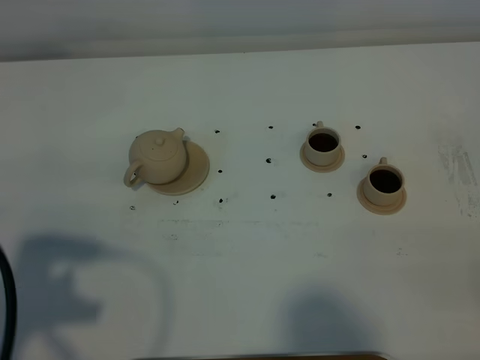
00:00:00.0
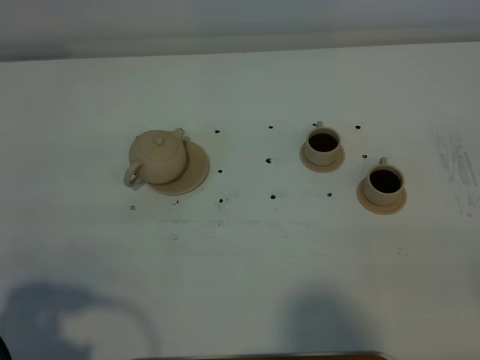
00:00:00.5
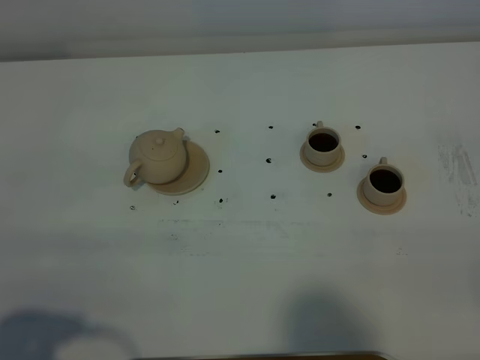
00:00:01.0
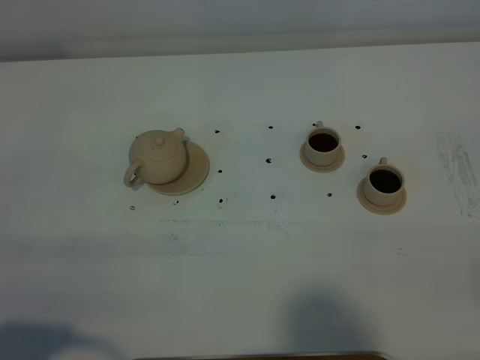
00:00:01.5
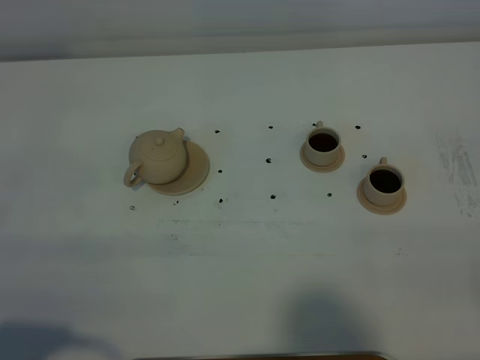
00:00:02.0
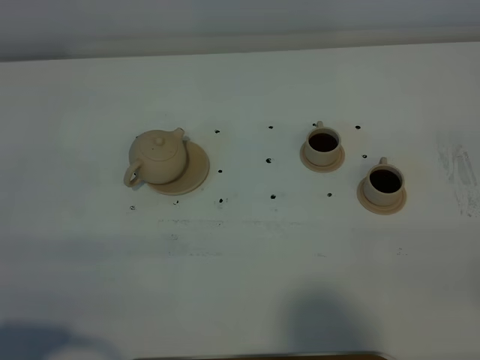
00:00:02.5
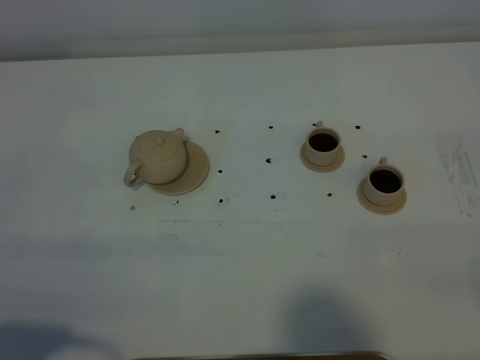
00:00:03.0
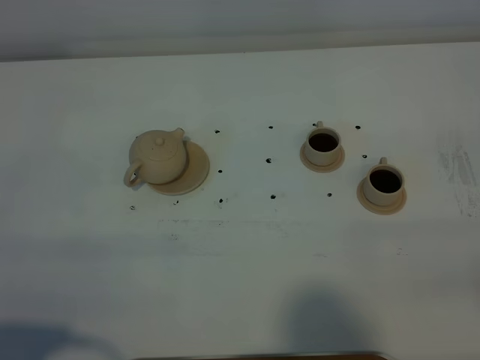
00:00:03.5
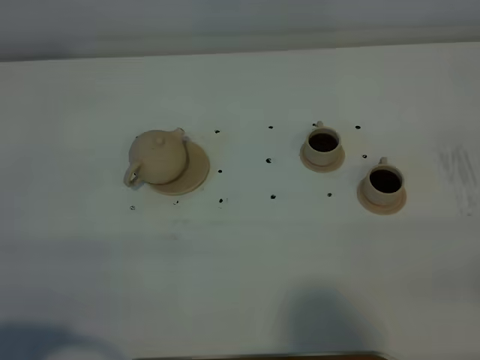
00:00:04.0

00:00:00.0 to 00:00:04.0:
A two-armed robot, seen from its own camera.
Task of the whole recording: grasp the brown teapot and pour the tea into the two brown teacups one by one, put the brown teapot back in its original place.
00:00:00.0 to 00:00:02.0: The left gripper heads backward and downward, covering some 10 cm.

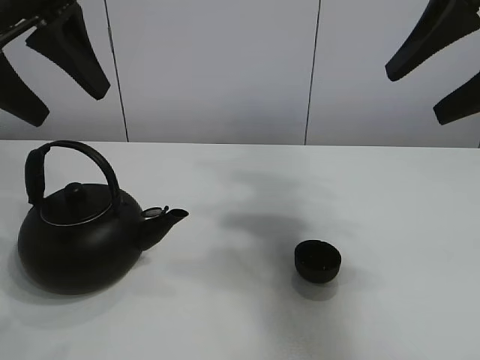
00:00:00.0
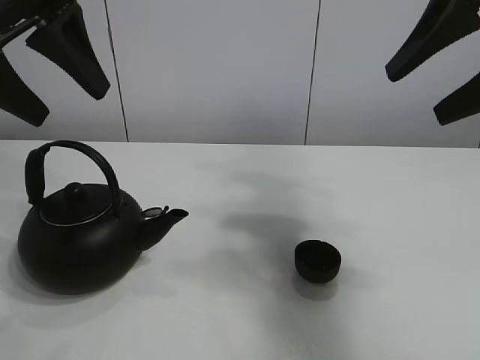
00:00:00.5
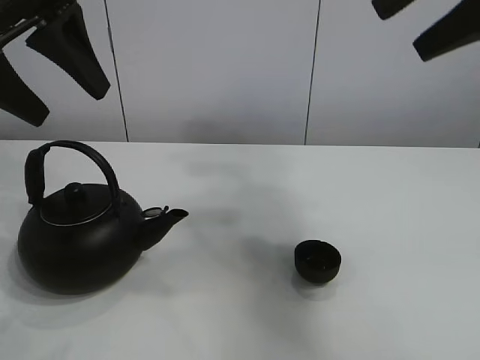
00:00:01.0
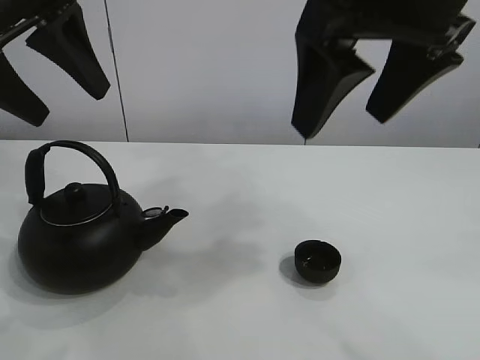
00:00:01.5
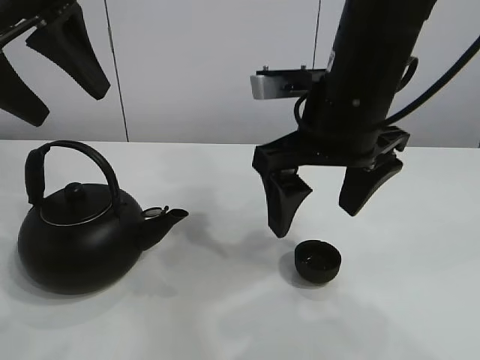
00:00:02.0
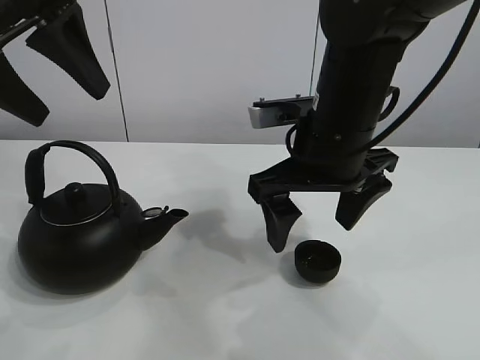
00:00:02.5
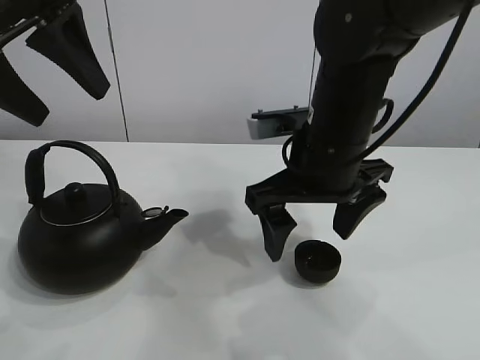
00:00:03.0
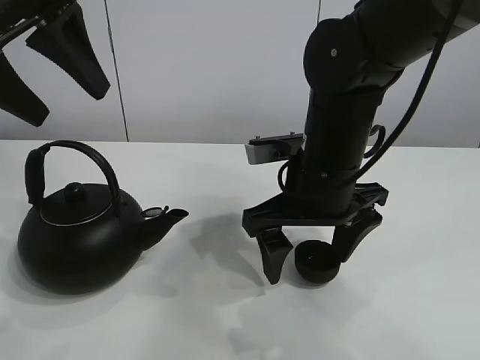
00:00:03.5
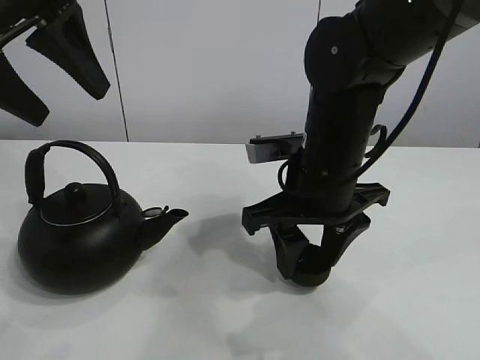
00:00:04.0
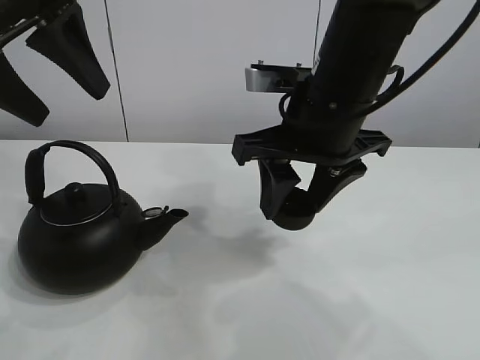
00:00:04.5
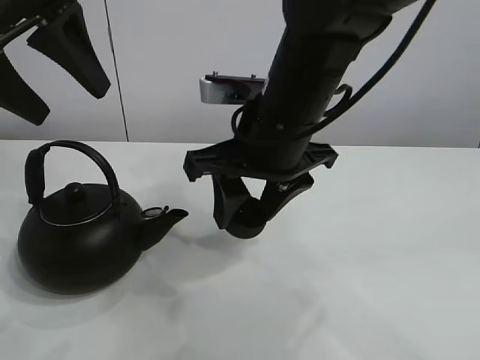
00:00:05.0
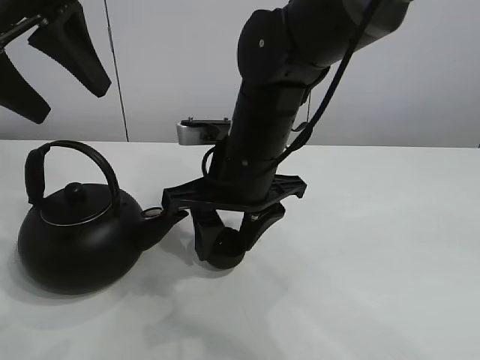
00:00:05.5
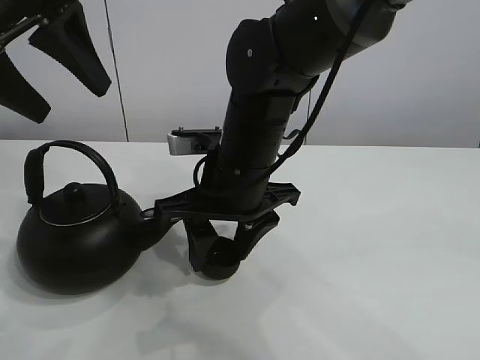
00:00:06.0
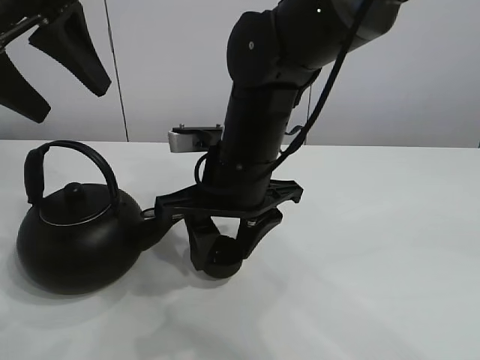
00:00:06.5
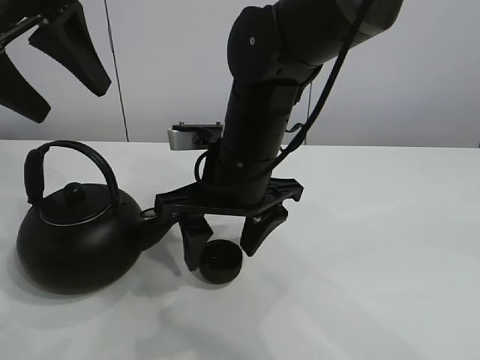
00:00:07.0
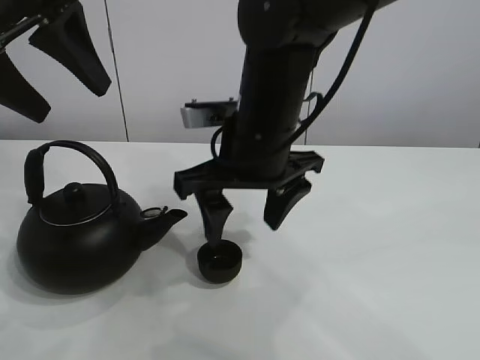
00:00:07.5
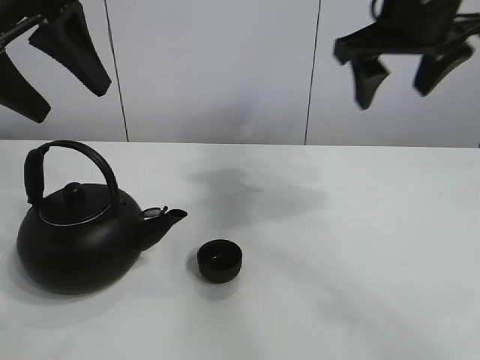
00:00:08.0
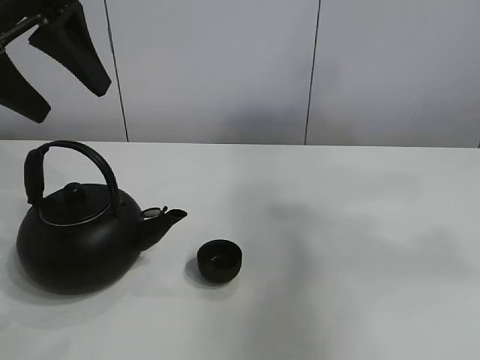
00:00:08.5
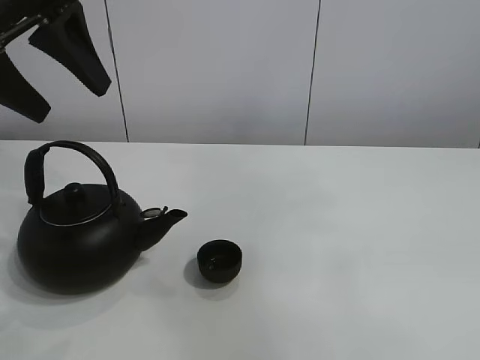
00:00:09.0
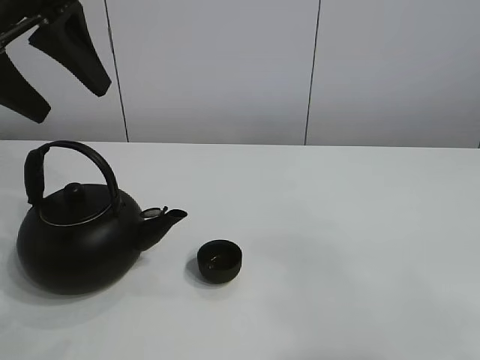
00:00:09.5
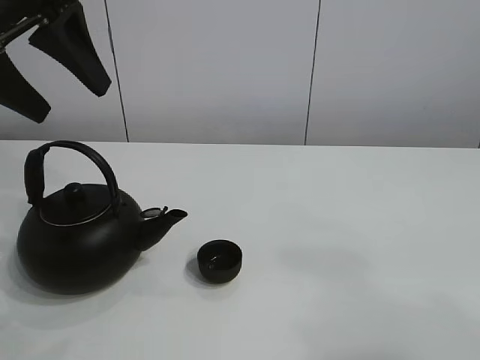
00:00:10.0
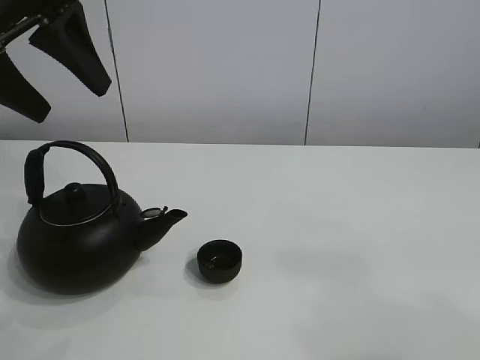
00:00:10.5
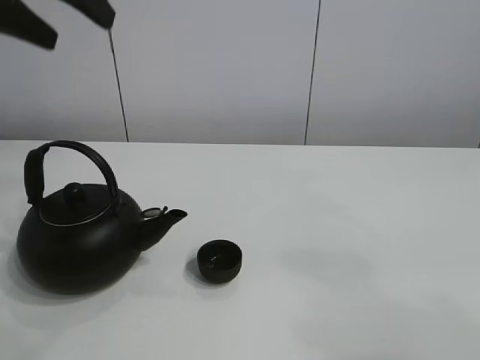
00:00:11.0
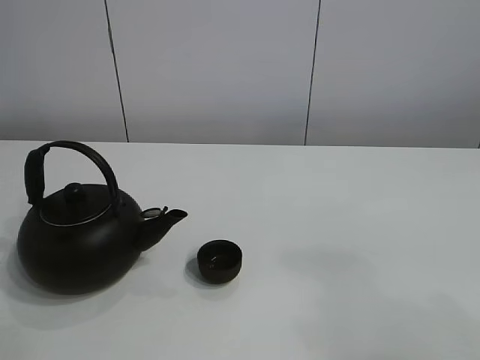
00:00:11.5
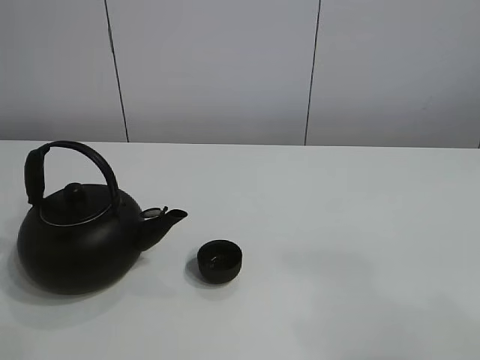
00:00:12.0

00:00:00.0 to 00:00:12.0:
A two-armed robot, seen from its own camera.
Task of the whole recording: pour tea into the teacup.
Step, 00:00:00.0 to 00:00:03.5: Pick up the teacup with the right gripper.
Step, 00:00:04.5 to 00:00:07.0: Place the teacup in the center of view with the right gripper.
00:00:02.0 to 00:00:04.0: The right gripper travels downward by about 10 cm, and closes its fingers.
00:00:04.0 to 00:00:06.0: The right gripper goes about 10 cm to the left.
00:00:06.0 to 00:00:08.0: The right gripper heads to the right and upward, covering roughly 20 cm, and opens up.
00:00:08.0 to 00:00:10.0: The right gripper shifts approximately 35 cm backward.
00:00:10.0 to 00:00:12.0: The left gripper is displaced backward and to the left by some 15 cm.

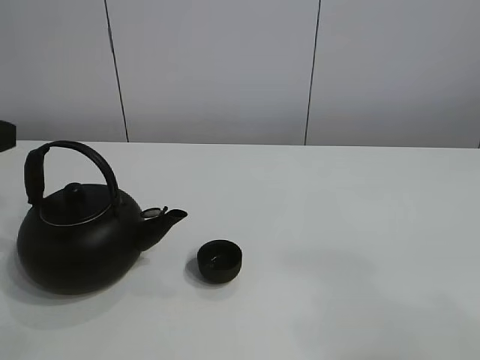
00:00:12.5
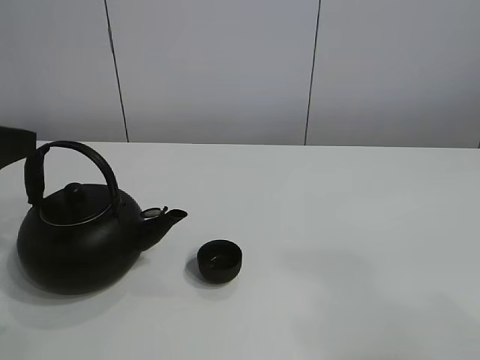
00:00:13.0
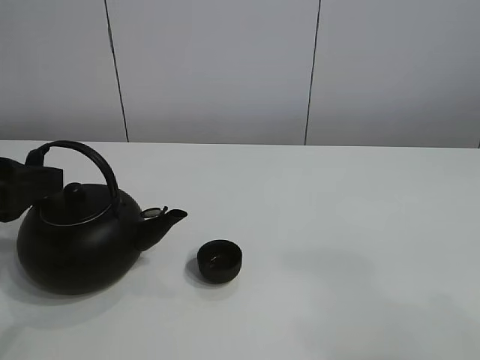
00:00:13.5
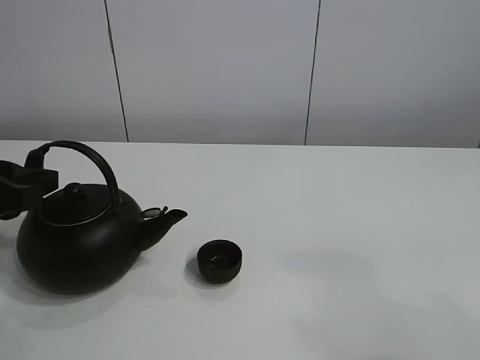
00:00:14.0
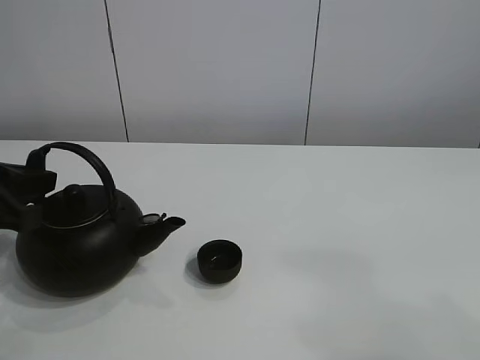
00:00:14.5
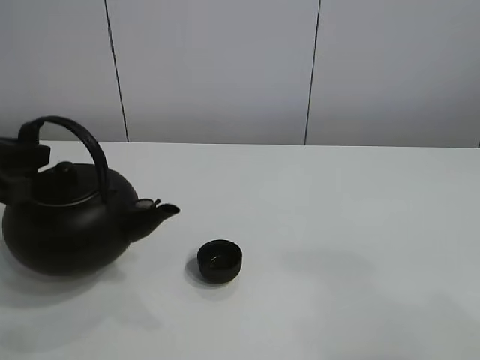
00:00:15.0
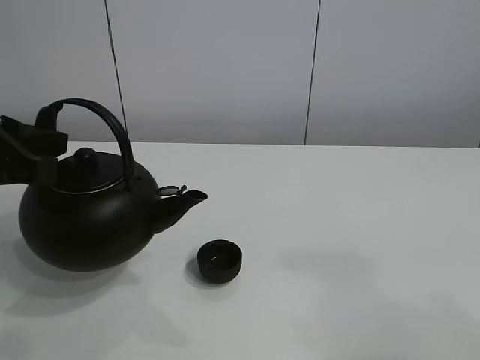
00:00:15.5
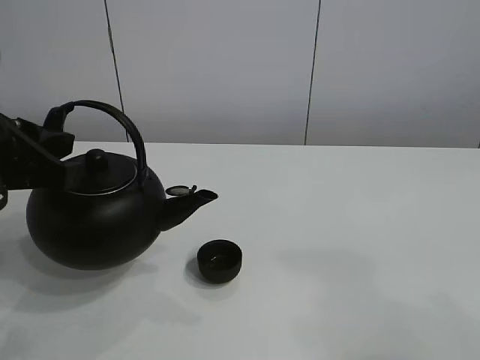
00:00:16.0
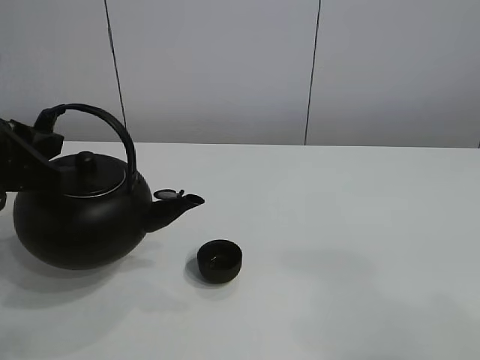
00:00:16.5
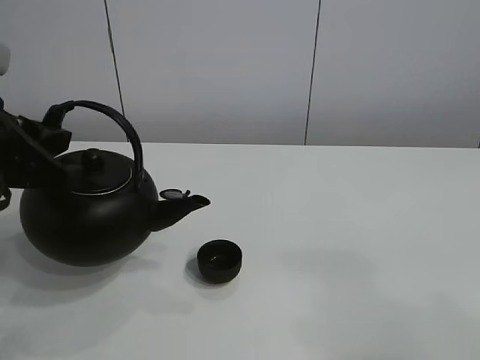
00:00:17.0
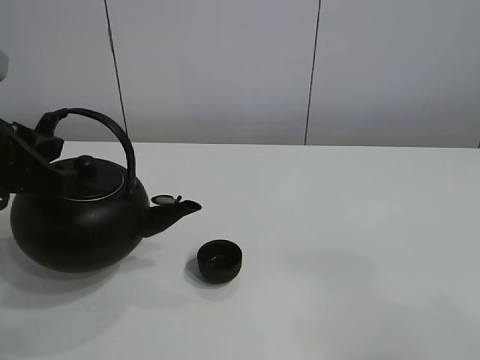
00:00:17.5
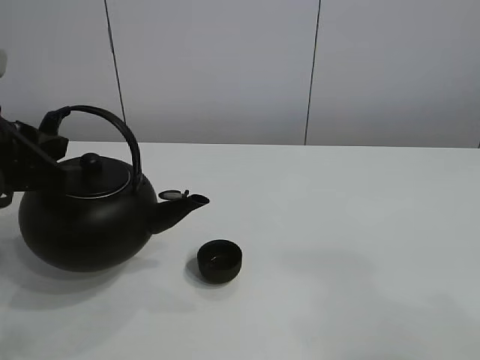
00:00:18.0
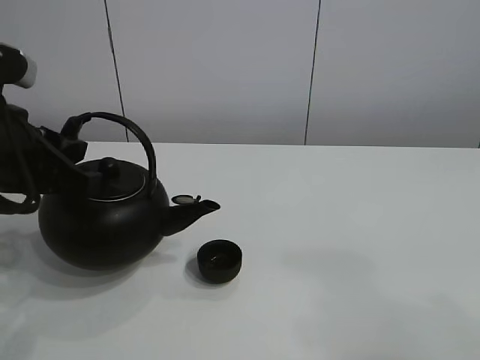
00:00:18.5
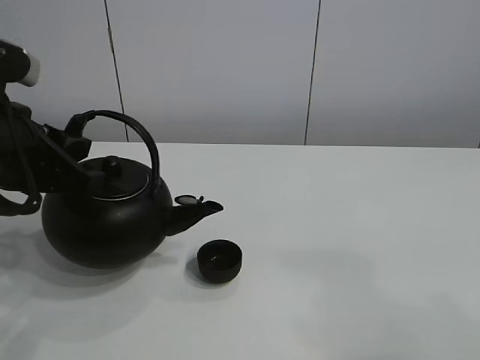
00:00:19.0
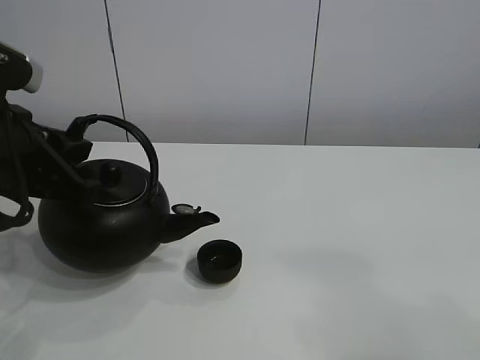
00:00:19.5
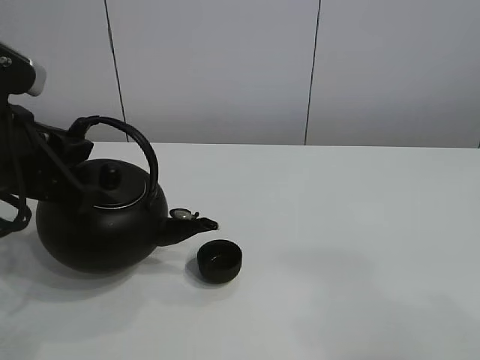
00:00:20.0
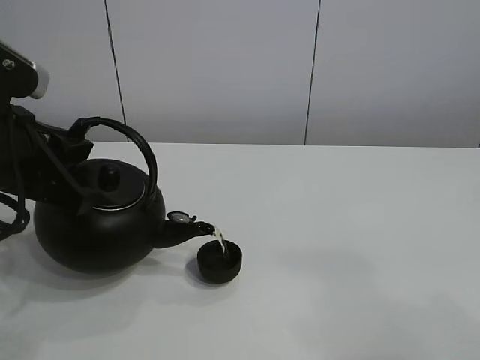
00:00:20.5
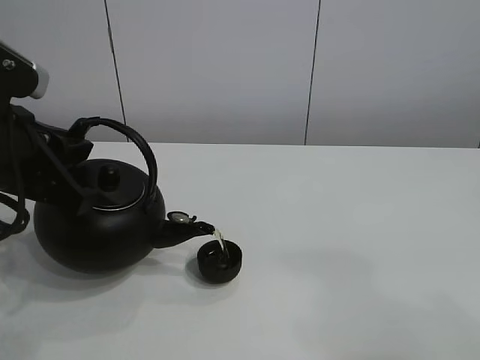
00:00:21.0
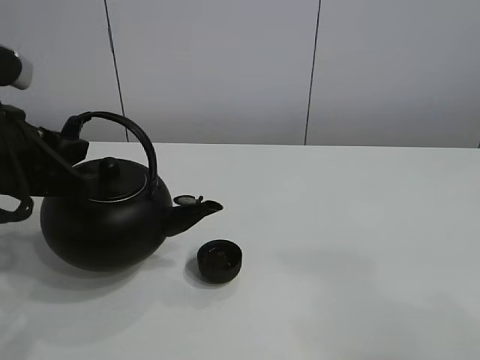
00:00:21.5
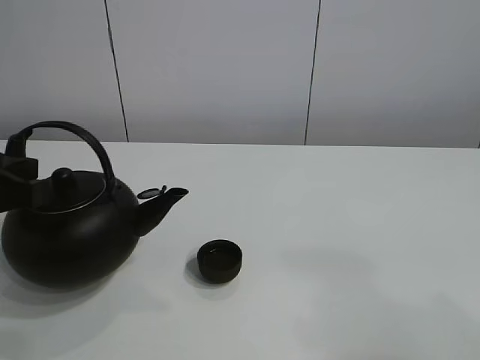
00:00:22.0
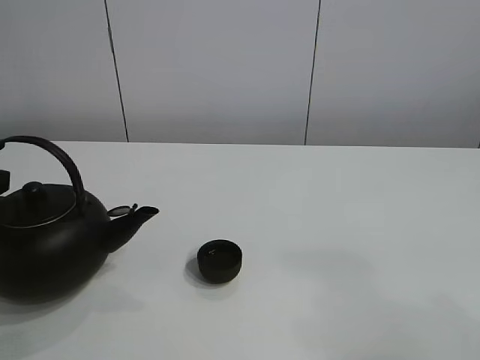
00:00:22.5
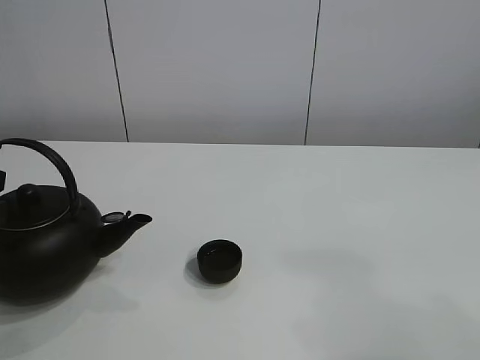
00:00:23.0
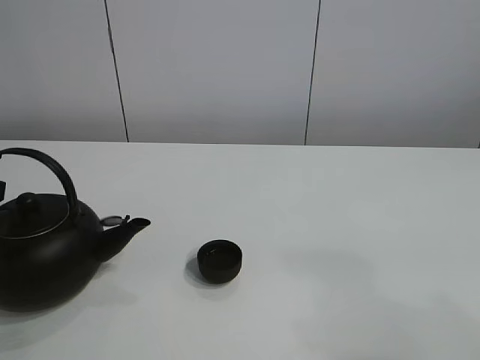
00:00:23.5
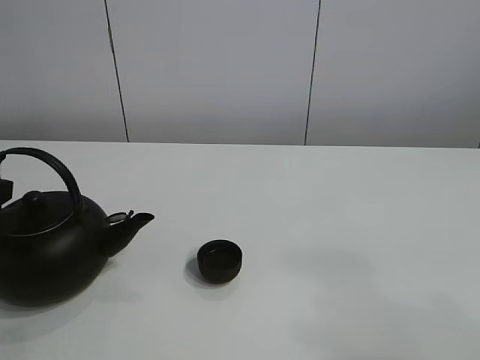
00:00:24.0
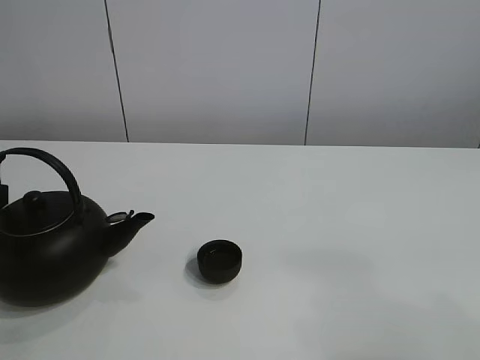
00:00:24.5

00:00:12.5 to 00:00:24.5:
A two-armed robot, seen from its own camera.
Task of the whole recording: pour tea into the teacup.
Step, 00:00:12.5 to 00:00:14.5: Pick up the teapot with the left gripper.
Step, 00:00:15.0 to 00:00:21.0: Pour tea into the teacup with the left gripper.
00:00:12.5 to 00:00:14.5: The left gripper shifts roughly 10 cm downward and forward, and closes its fingers.
00:00:14.5 to 00:00:16.5: The left gripper moves upward, roughly 5 cm.
00:00:16.5 to 00:00:20.5: The grippers stay close to where they were, moving slightly.
00:00:20.5 to 00:00:22.5: The left gripper heads to the left, covering about 5 cm.
00:00:22.5 to 00:00:24.5: The left gripper opens its fingers.
